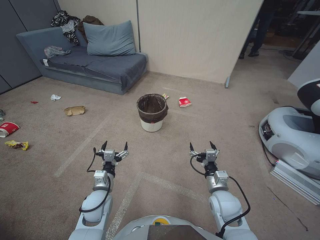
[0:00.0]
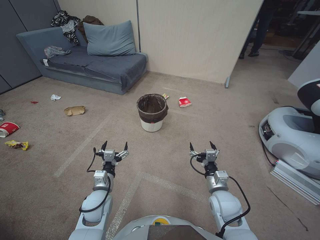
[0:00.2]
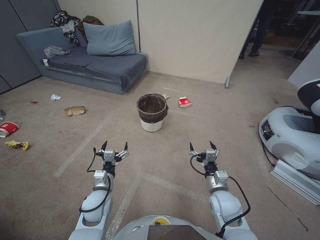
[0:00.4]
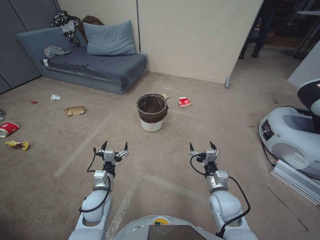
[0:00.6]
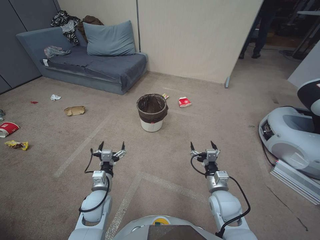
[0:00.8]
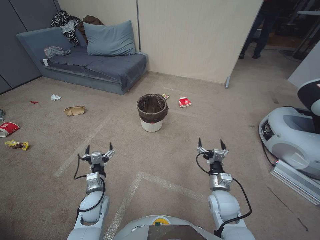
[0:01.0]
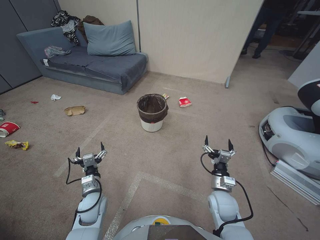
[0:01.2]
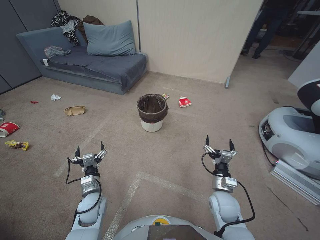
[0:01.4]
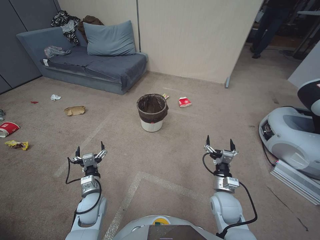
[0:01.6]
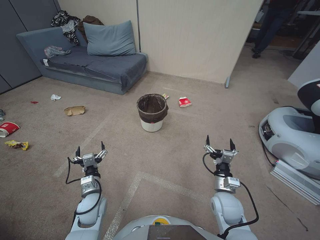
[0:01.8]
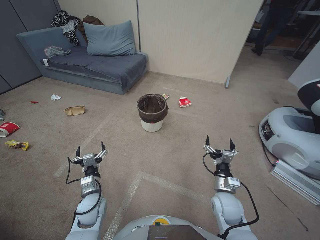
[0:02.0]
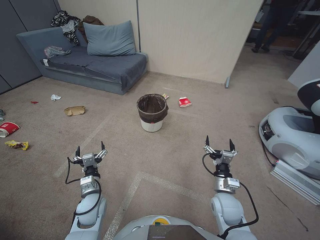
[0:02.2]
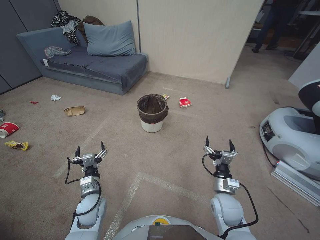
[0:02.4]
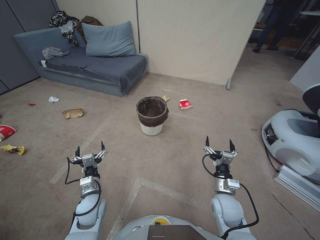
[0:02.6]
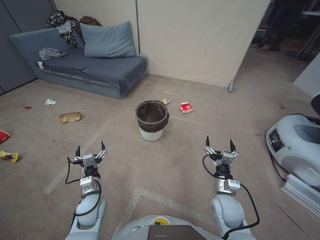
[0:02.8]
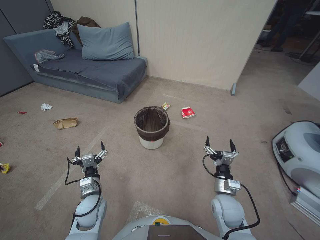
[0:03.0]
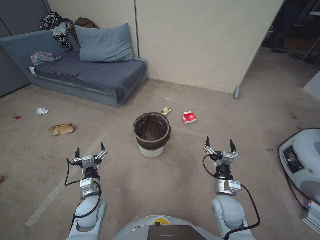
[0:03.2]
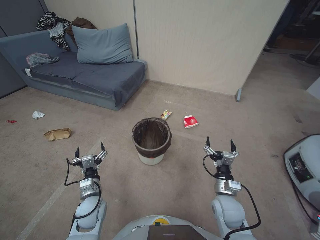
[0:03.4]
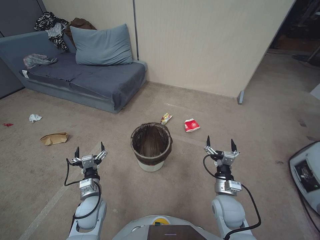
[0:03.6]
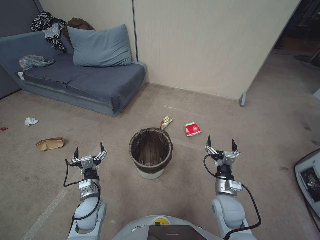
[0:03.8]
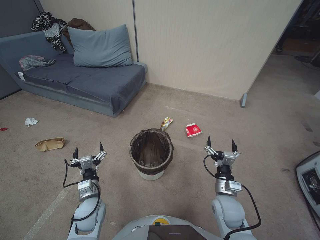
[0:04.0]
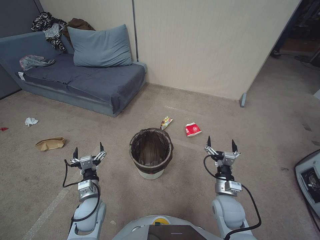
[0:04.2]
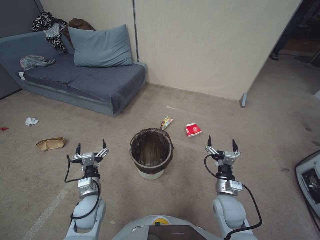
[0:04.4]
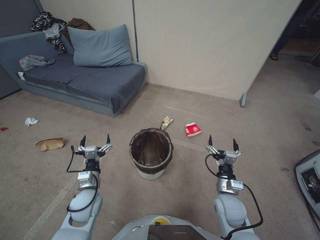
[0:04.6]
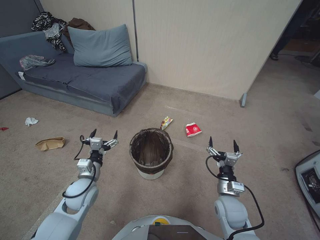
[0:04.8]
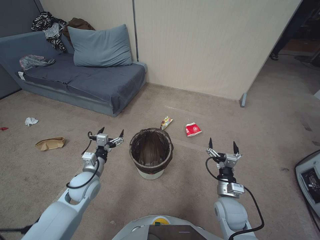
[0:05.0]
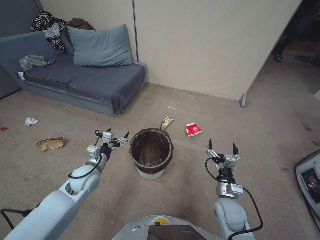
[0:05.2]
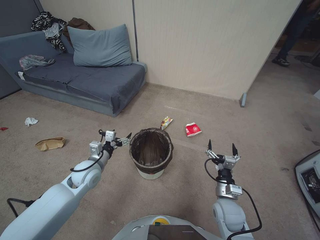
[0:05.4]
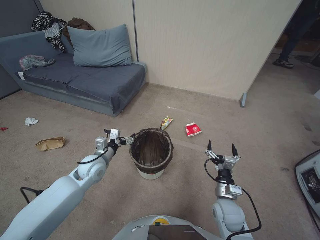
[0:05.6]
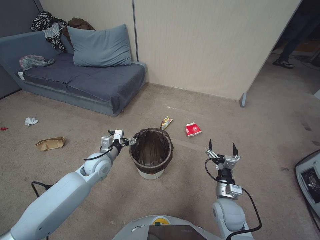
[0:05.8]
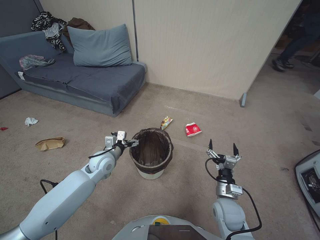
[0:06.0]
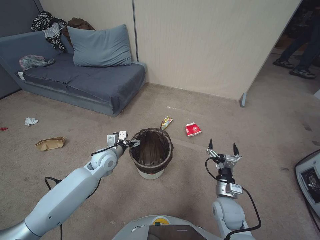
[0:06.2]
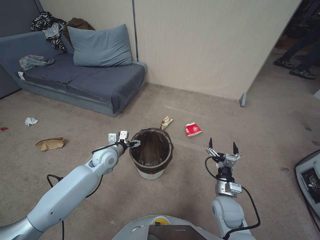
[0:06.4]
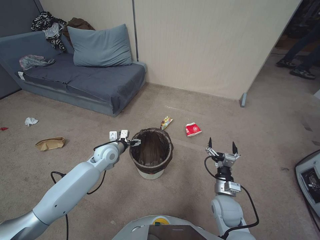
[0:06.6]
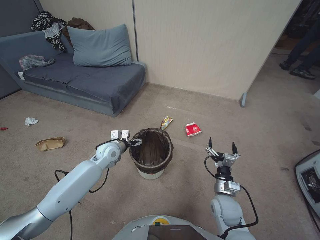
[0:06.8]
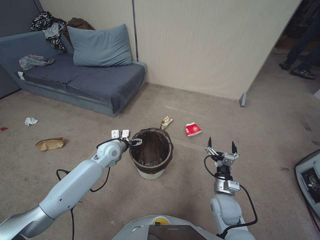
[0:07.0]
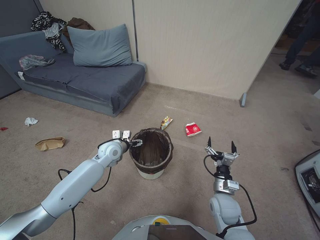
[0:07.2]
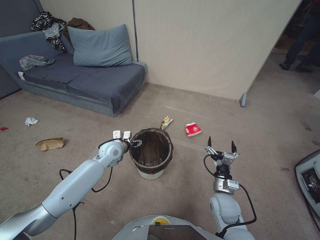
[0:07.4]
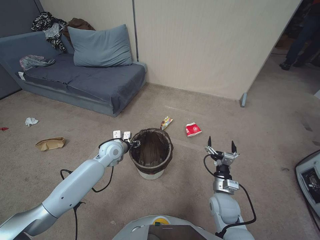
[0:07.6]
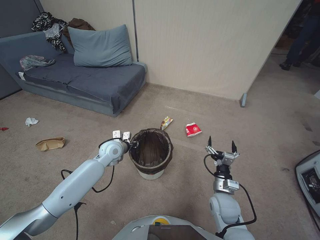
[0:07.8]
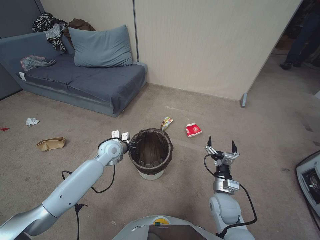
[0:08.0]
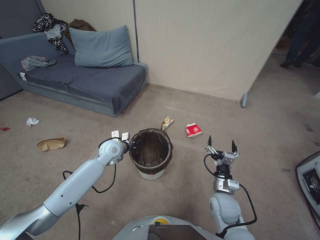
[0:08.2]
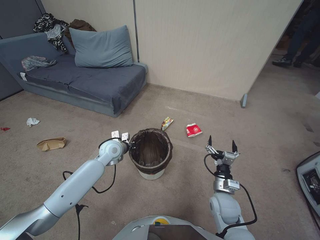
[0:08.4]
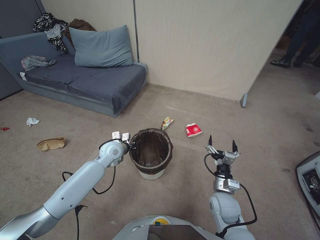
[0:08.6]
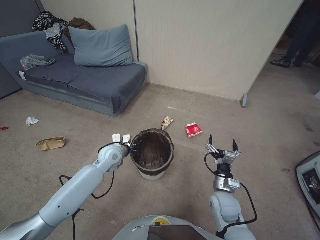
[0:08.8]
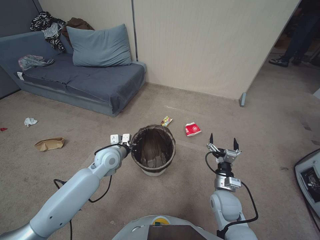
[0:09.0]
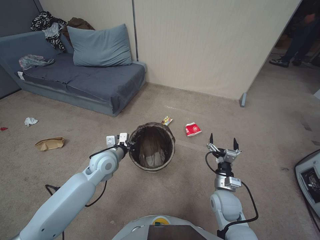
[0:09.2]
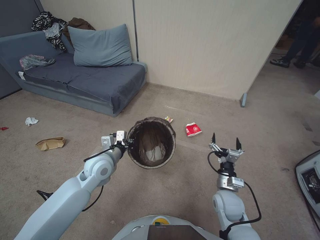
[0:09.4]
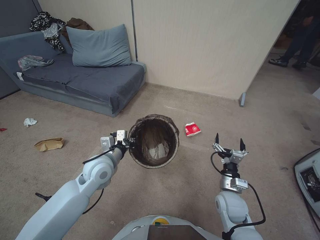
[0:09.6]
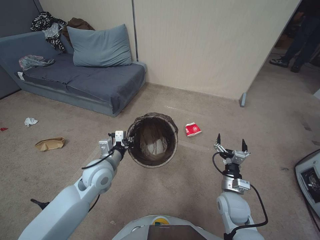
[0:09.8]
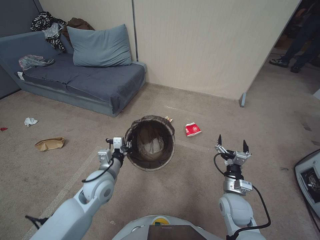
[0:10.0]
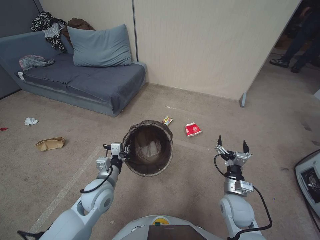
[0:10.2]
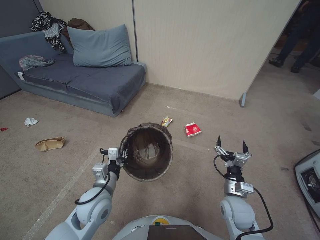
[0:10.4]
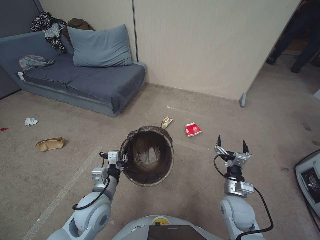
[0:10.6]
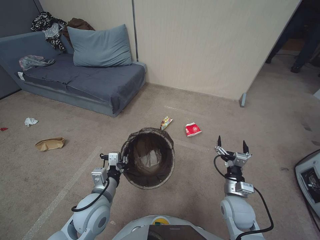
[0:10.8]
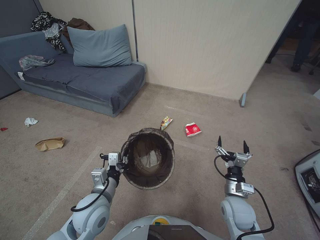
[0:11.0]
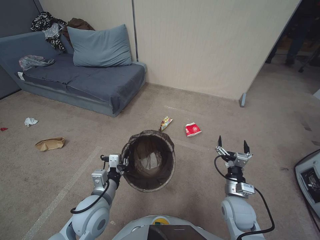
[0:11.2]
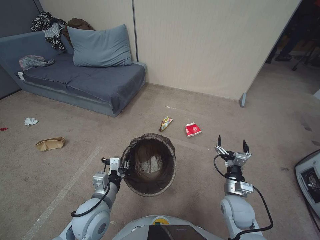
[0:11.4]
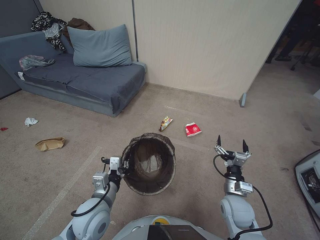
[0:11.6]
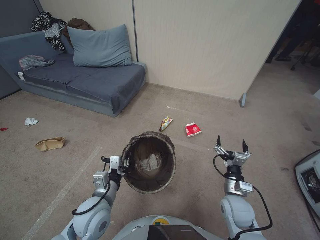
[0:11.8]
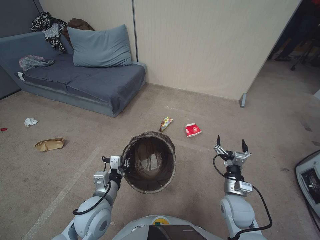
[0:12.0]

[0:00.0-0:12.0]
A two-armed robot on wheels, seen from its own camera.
Task of the whole recording: Pick up the trash bin, then pick up the garbage from the floor and place it into the trash bin.
0:01.6 to 0:03.0: Neither gripper changes place.
0:04.4 to 0:06.0: The left gripper shifts roughly 15 cm forward and upward.
0:06.0 to 0:07.6: The left gripper heads forward, covering about 5 cm, and closes up.
0:07.6 to 0:09.0: The left gripper closes its fingers.
0:09.0 to 0:10.4: The left gripper goes roughly 10 cm backward.
0:10.4 to 0:12.0: The left gripper travels backward by about 5 cm.

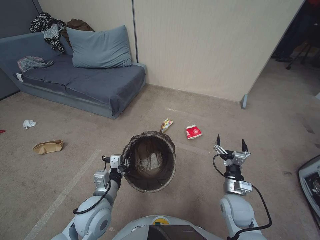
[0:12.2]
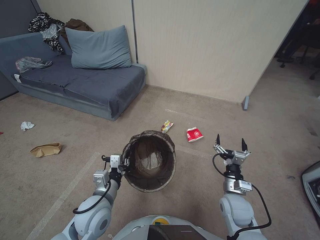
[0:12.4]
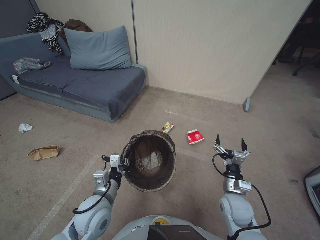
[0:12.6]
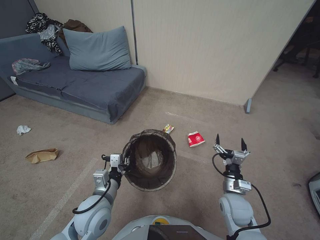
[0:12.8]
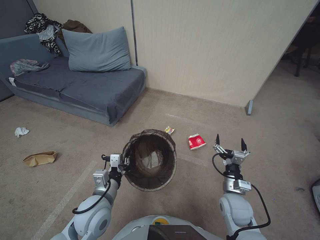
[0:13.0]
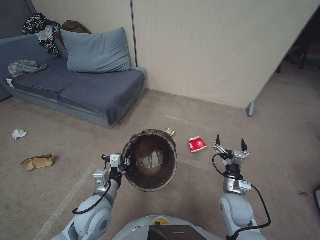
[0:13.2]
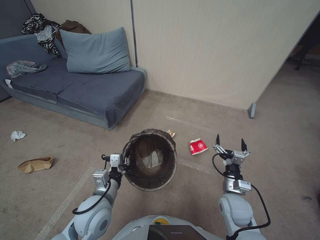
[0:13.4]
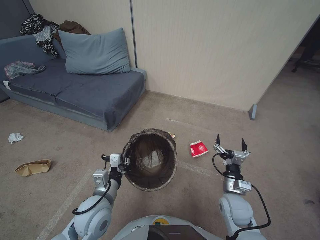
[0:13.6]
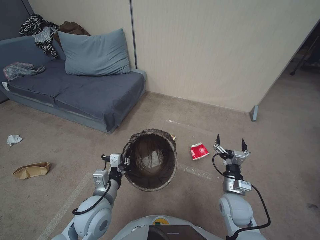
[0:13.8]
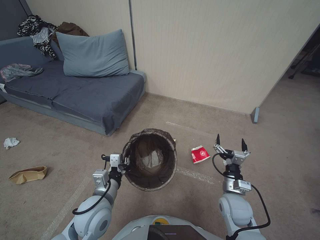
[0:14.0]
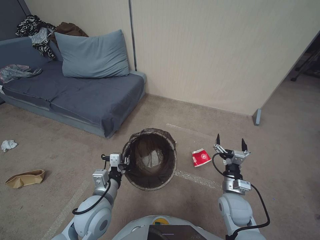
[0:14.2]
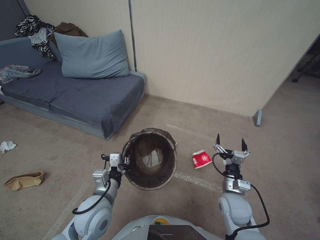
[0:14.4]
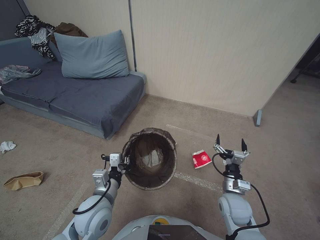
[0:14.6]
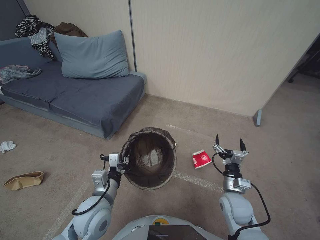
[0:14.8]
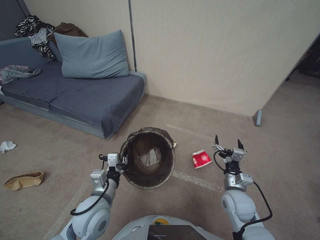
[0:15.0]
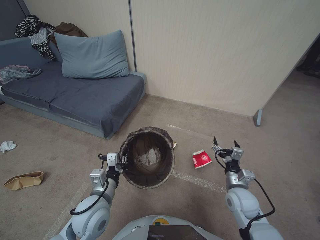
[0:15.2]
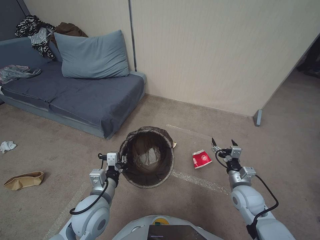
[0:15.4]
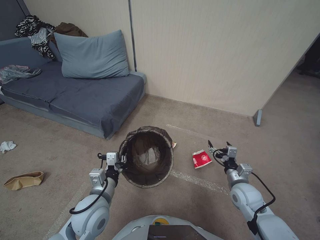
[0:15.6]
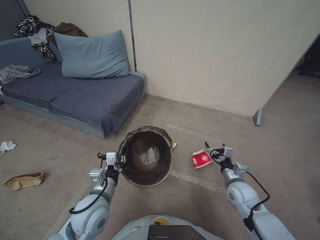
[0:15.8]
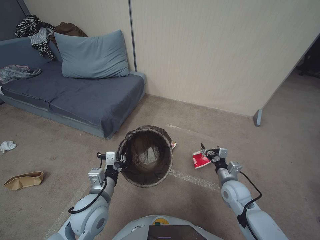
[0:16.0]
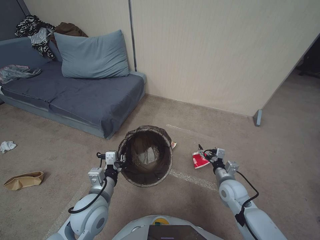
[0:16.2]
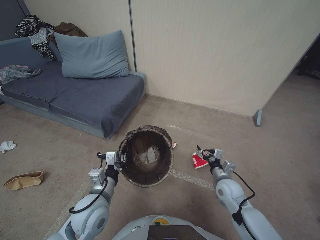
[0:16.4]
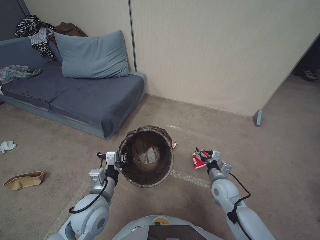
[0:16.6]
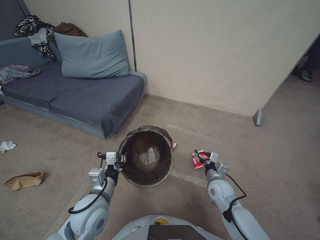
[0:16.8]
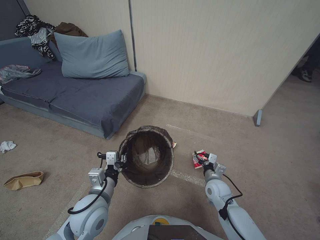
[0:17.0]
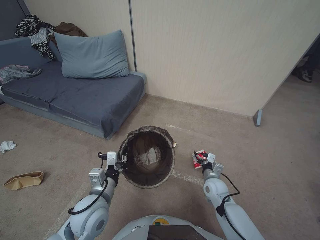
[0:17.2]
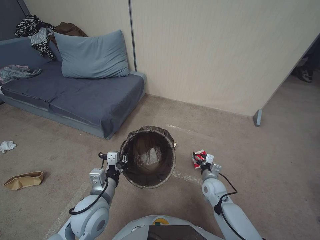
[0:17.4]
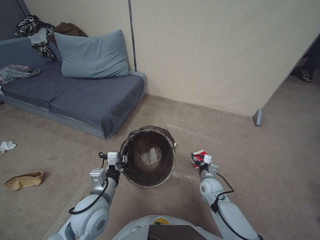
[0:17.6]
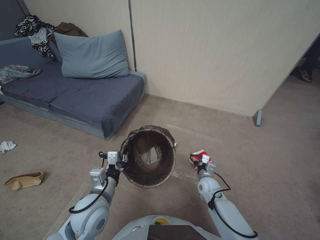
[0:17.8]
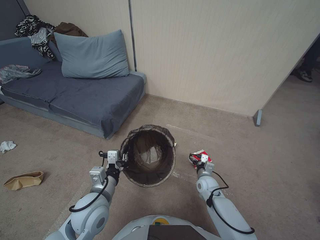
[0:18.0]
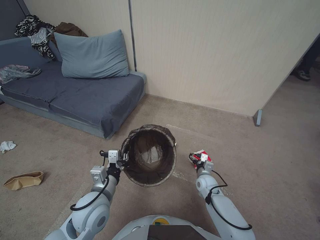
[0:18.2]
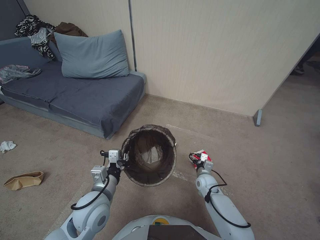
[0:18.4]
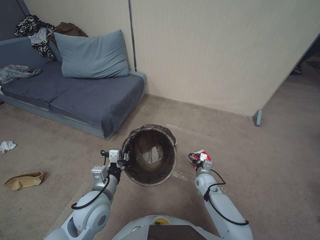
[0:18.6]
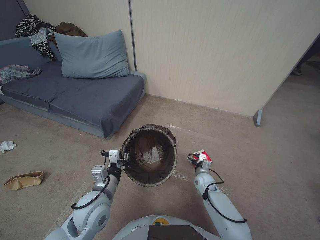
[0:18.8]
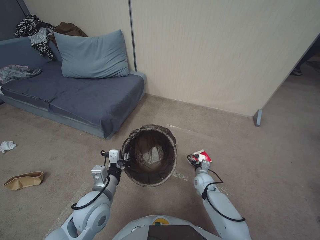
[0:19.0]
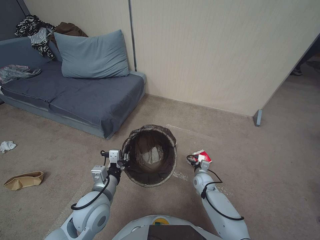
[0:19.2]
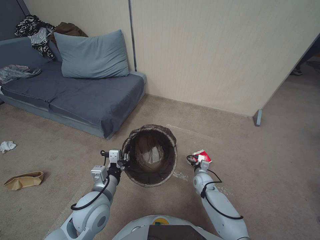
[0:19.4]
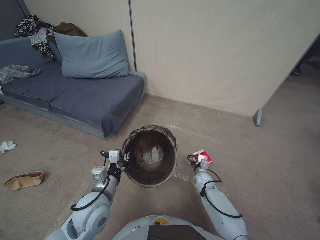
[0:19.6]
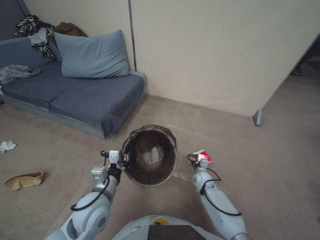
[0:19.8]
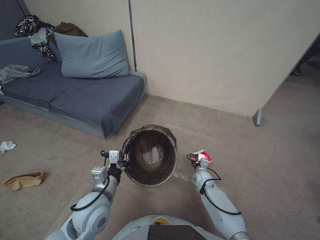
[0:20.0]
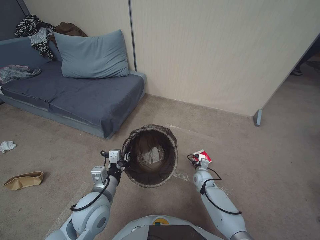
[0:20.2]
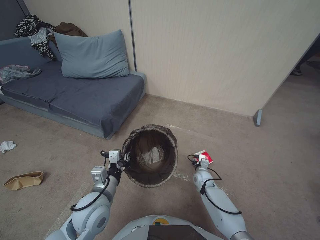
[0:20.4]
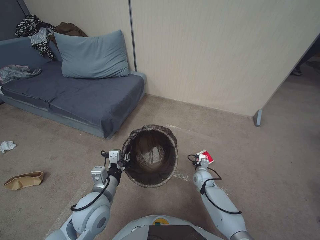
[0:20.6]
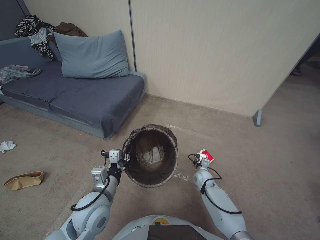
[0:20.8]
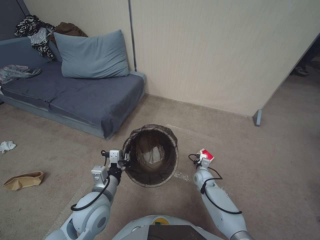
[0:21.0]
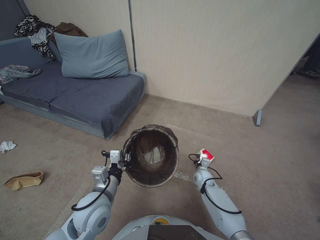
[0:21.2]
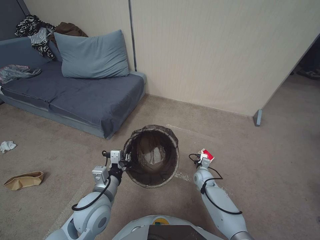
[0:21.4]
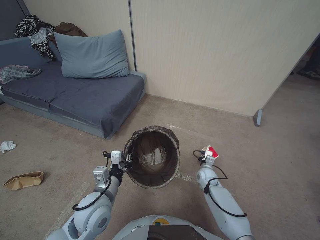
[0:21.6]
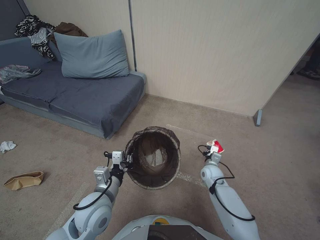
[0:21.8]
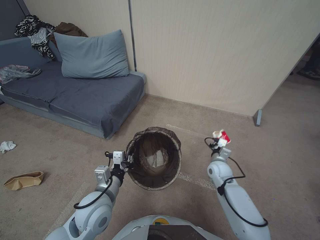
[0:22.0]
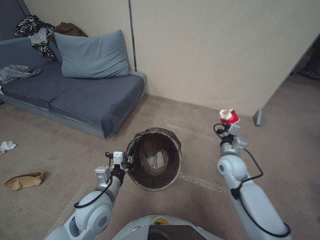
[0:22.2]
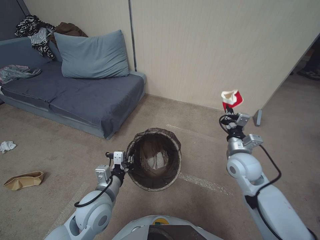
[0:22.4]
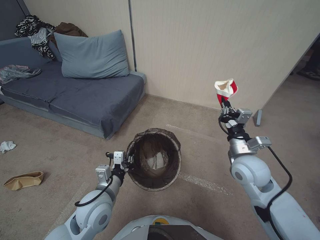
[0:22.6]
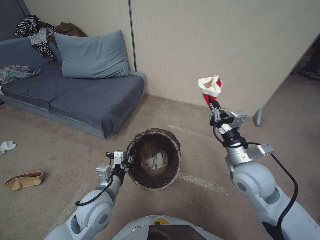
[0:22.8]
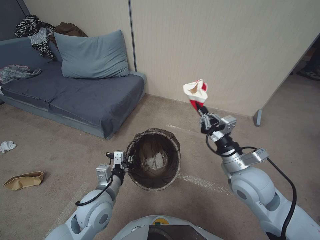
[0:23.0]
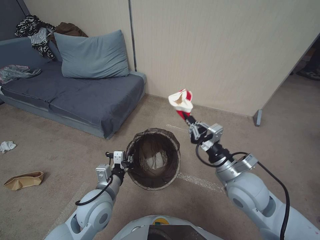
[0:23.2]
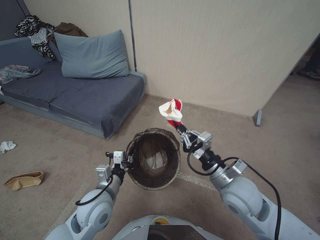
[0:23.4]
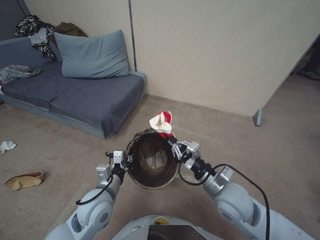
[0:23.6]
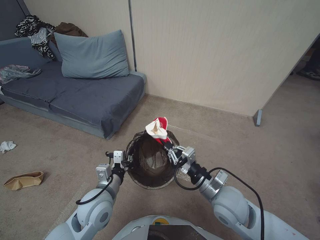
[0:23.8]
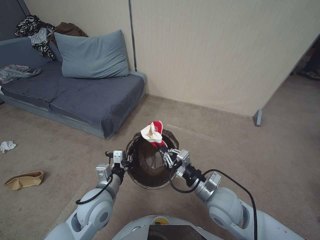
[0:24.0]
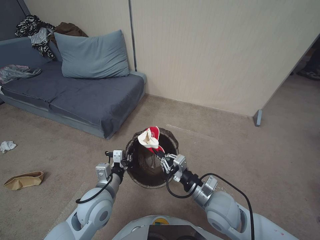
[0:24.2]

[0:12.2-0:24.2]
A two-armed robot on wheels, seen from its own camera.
Task of the whole recording: Pick up the trash bin, then pick up the garbage from the floor and place it into the trash bin.
0:12.2 to 0:13.8: The two grippers keep their place.
0:13.8 to 0:15.2: The grippers make only small movements.
0:15.2 to 0:16.6: The right gripper shifts by roughly 5 cm.
0:16.6 to 0:18.2: The right gripper is displaced downward by roughly 10 cm.
0:18.2 to 0:19.8: The right gripper ends up roughly 5 cm from where it was.
0:19.8 to 0:21.2: The right gripper closes.
0:21.2 to 0:22.6: The right gripper shifts roughly 30 cm upward.
0:22.6 to 0:24.2: The right gripper heads backward and to the left, covering some 15 cm.
